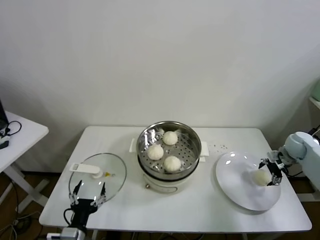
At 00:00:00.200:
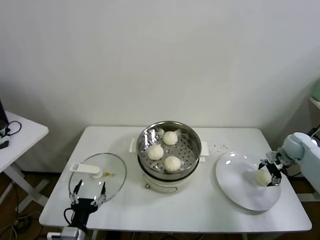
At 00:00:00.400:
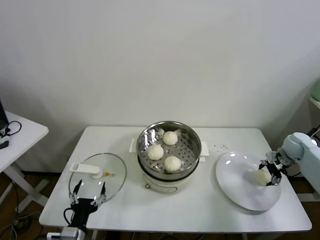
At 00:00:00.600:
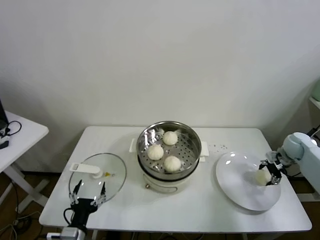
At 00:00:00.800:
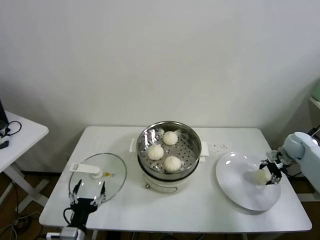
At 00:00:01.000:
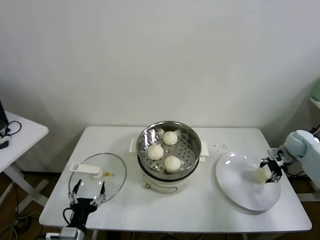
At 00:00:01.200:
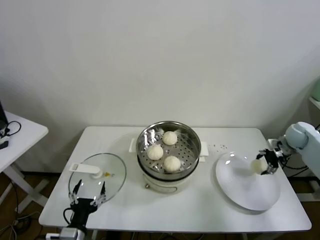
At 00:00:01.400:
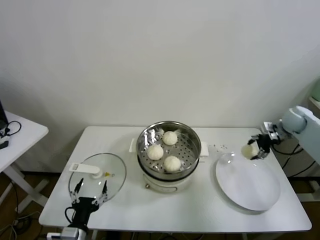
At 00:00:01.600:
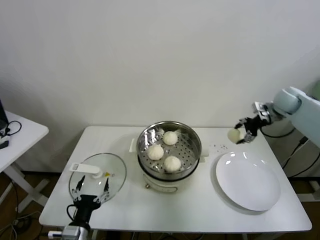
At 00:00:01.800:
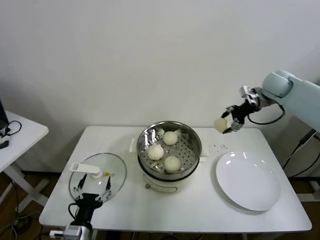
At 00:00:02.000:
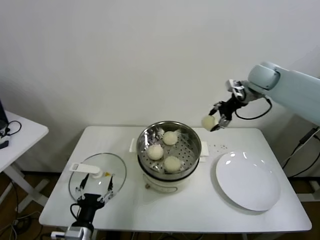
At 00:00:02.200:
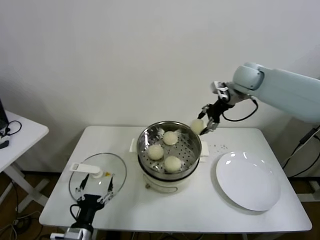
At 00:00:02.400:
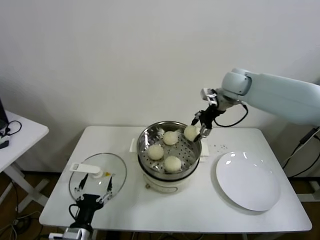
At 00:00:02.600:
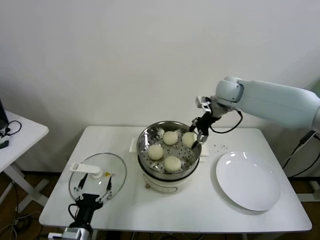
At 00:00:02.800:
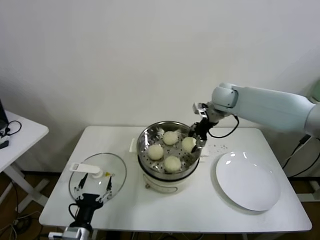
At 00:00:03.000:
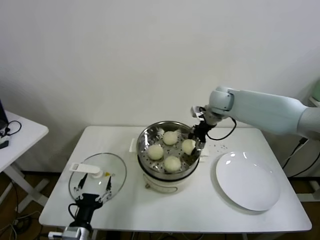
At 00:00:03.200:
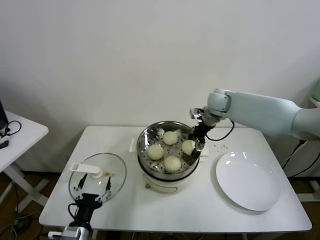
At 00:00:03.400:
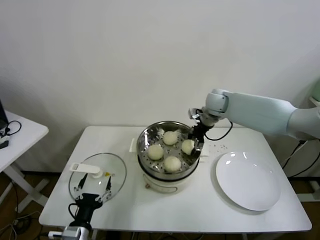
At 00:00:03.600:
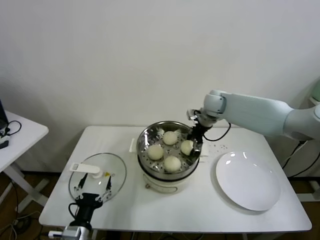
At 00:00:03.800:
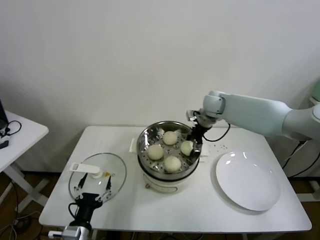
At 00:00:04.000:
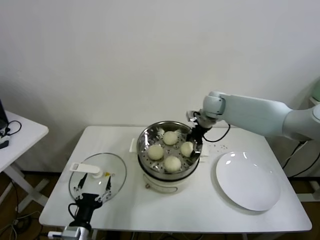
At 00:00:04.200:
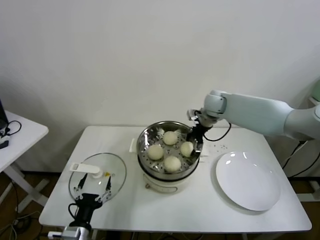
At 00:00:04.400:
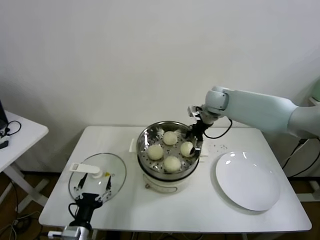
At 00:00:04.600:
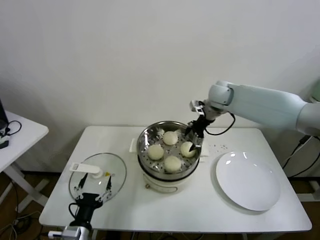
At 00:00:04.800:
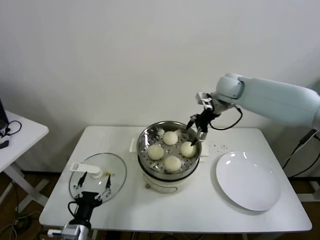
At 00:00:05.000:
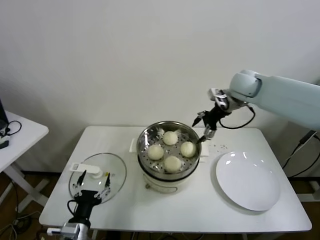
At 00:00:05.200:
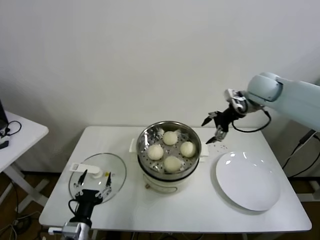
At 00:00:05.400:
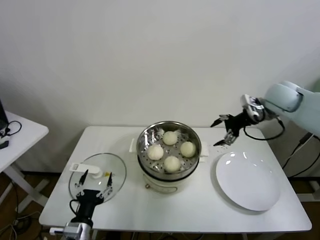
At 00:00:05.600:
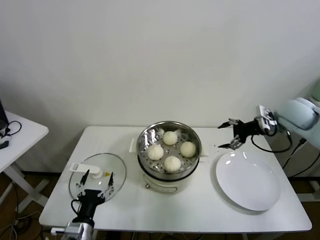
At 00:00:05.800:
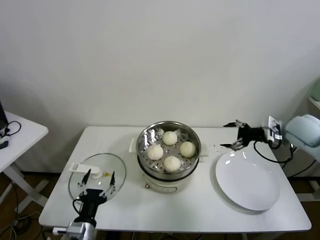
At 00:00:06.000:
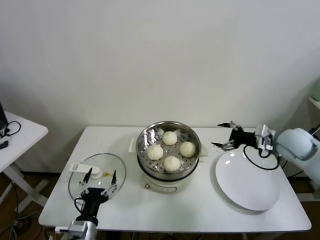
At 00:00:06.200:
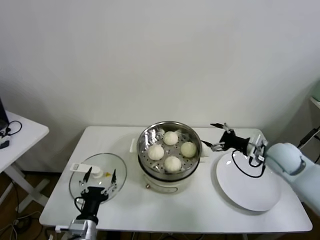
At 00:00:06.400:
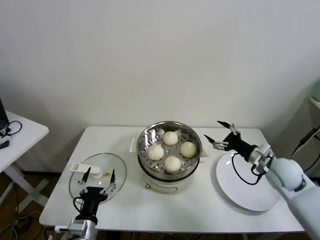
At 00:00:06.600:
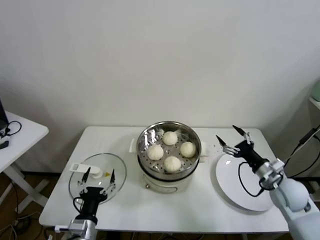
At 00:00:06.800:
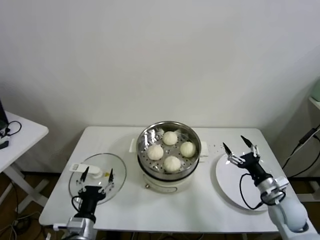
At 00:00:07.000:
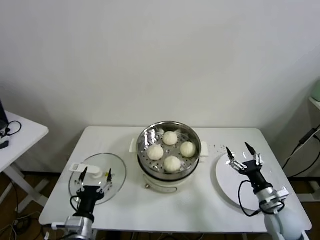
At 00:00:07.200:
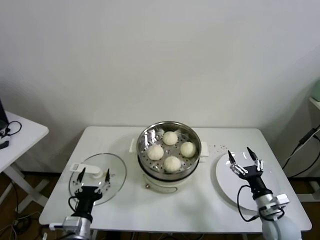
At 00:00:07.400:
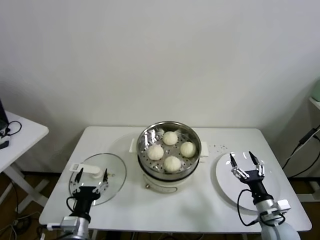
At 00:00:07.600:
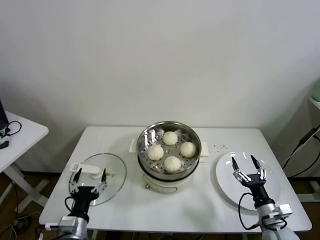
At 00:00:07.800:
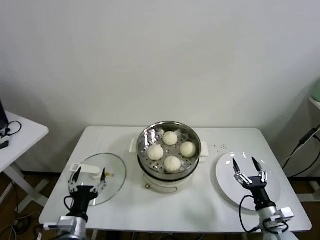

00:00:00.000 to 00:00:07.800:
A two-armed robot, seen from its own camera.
Task of the whole recording: take steamed baozi put them in steamer.
Step, 00:00:00.600 to 00:00:04.000: Place the baozi on the steamer with right gripper.
00:00:00.000 to 00:00:01.600: The right gripper travels upward, forward and to the left by approximately 20 cm, and closes.
00:00:01.600 to 00:00:03.200: The right gripper goes some 25 cm to the left.
00:00:03.200 to 00:00:04.600: The right gripper opens its fingers.
00:00:04.600 to 00:00:06.200: The right gripper shifts approximately 25 cm backward, to the right and downward.
00:00:06.200 to 00:00:07.800: The right gripper moves backward and downward, about 25 cm.
